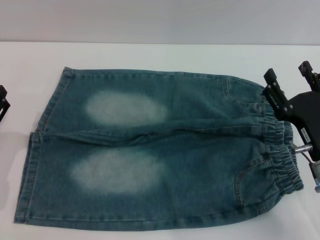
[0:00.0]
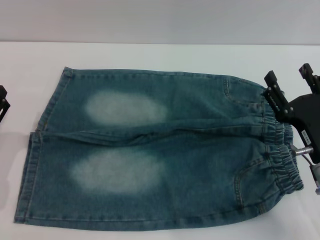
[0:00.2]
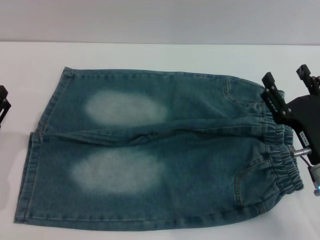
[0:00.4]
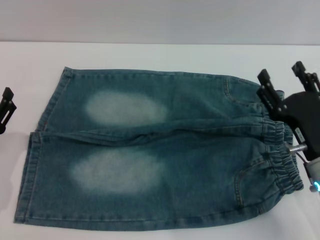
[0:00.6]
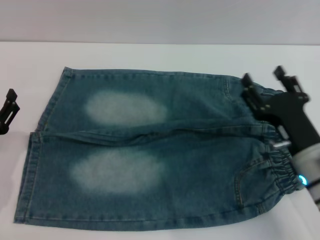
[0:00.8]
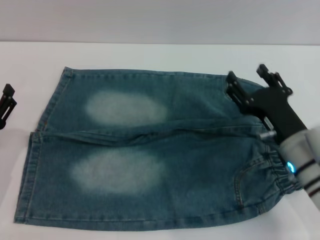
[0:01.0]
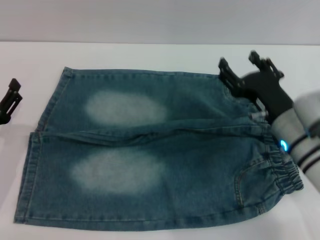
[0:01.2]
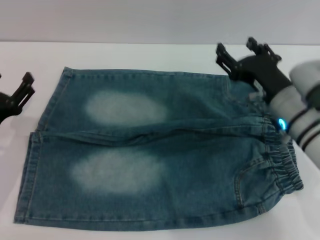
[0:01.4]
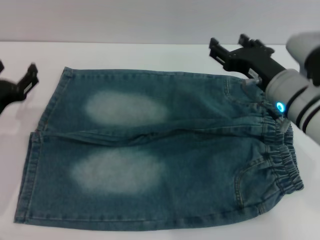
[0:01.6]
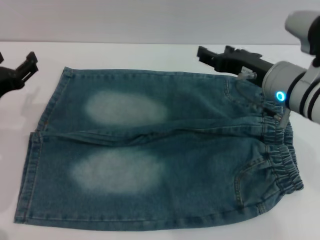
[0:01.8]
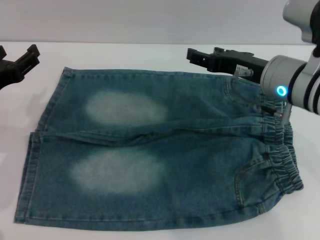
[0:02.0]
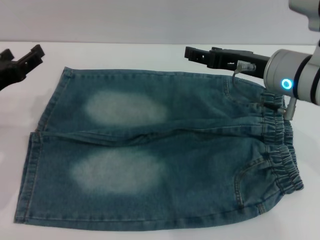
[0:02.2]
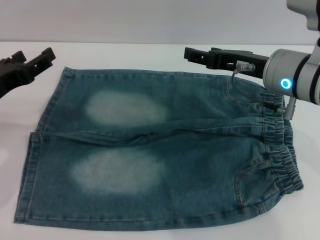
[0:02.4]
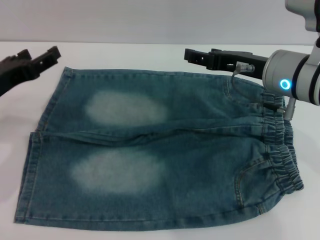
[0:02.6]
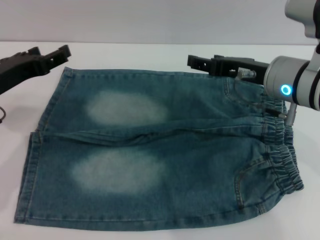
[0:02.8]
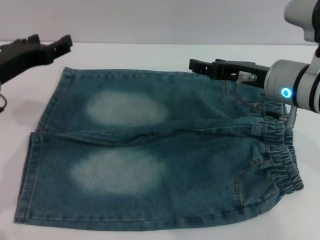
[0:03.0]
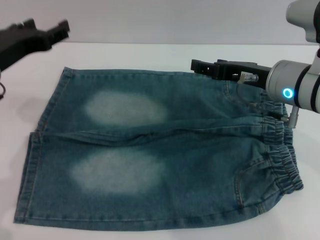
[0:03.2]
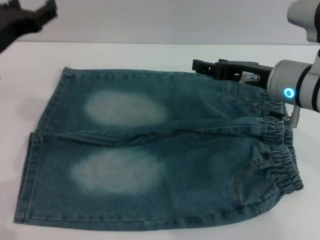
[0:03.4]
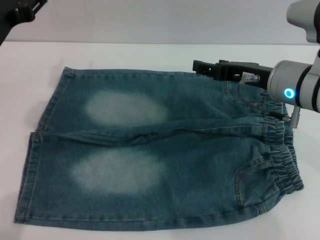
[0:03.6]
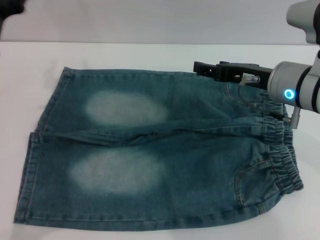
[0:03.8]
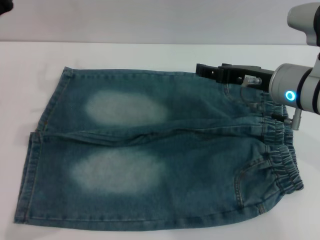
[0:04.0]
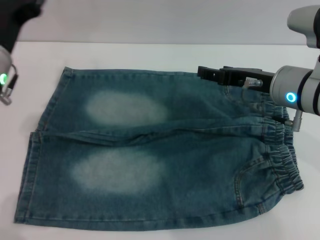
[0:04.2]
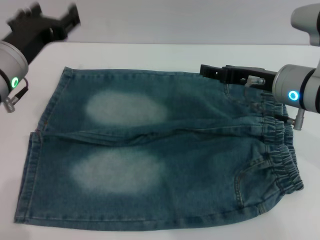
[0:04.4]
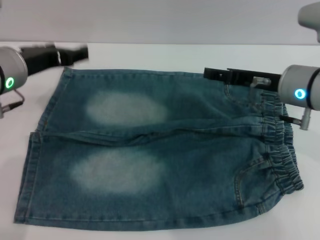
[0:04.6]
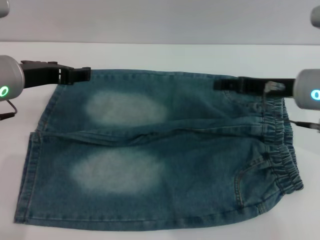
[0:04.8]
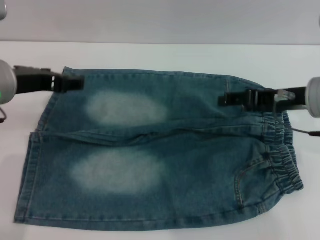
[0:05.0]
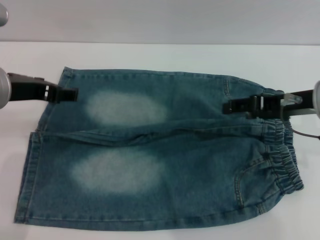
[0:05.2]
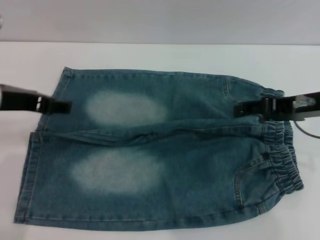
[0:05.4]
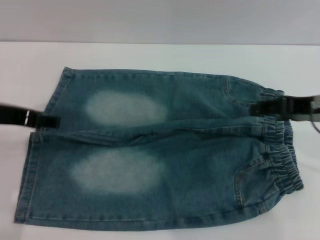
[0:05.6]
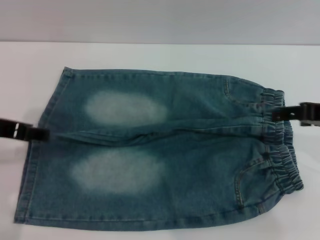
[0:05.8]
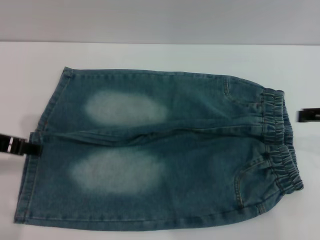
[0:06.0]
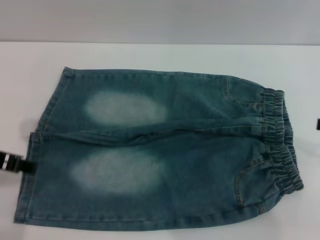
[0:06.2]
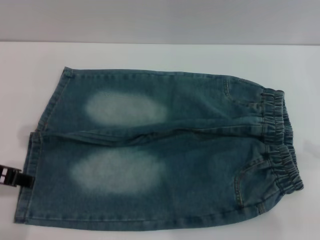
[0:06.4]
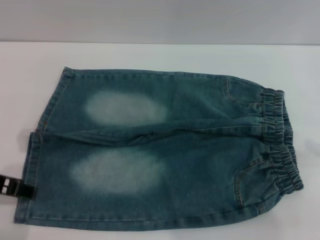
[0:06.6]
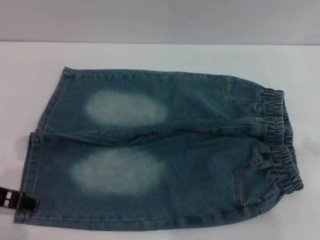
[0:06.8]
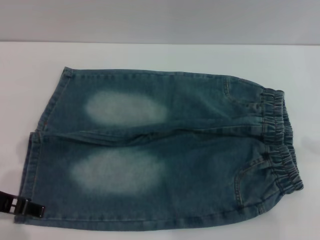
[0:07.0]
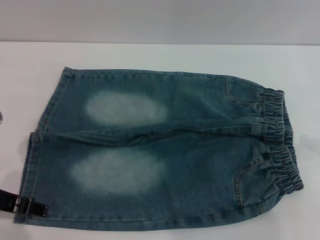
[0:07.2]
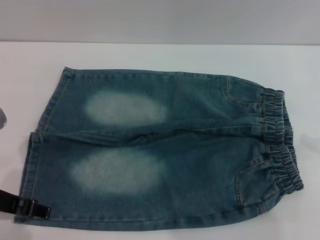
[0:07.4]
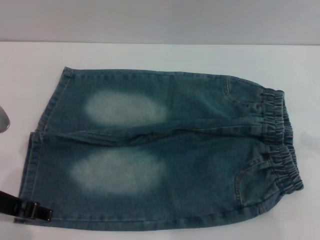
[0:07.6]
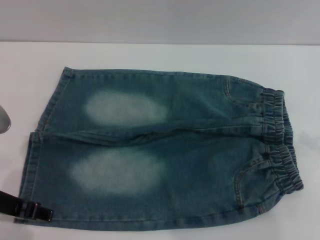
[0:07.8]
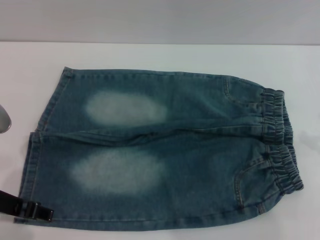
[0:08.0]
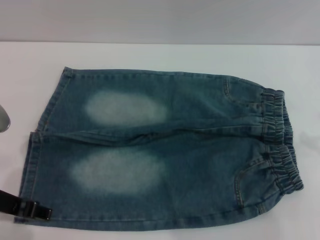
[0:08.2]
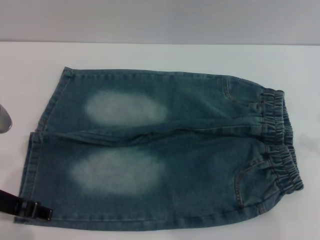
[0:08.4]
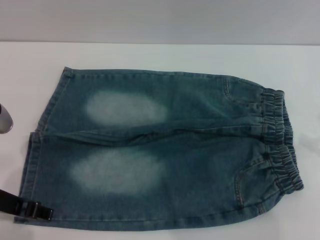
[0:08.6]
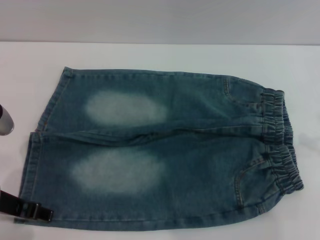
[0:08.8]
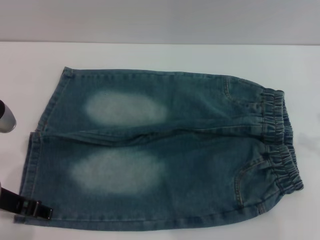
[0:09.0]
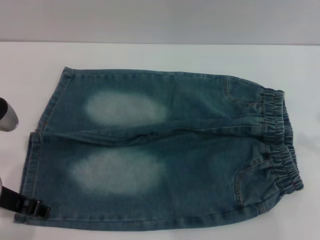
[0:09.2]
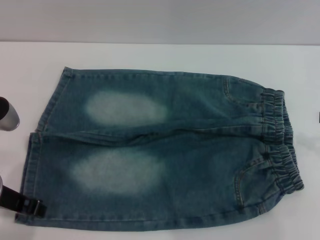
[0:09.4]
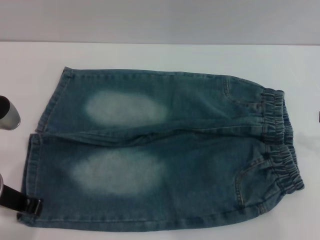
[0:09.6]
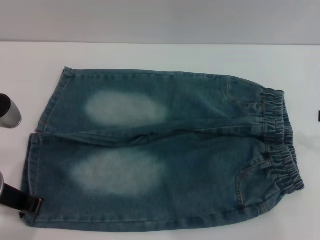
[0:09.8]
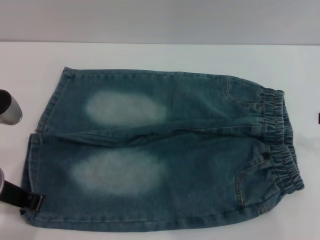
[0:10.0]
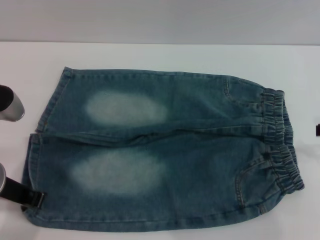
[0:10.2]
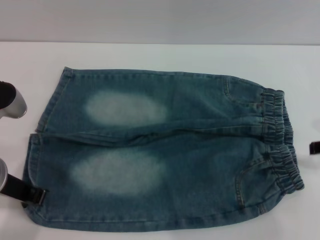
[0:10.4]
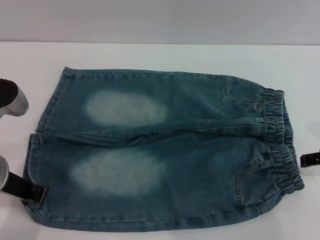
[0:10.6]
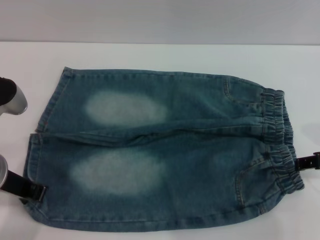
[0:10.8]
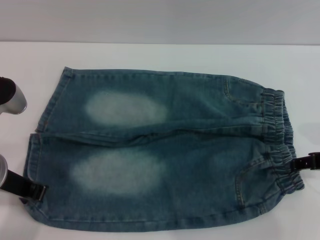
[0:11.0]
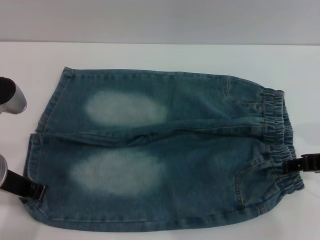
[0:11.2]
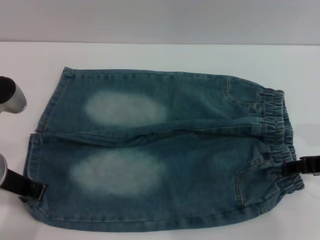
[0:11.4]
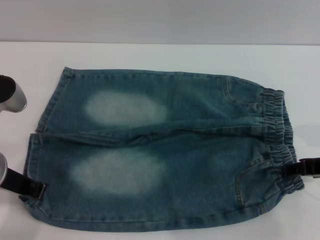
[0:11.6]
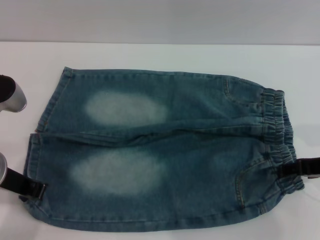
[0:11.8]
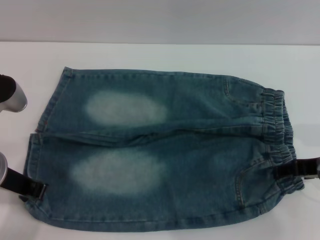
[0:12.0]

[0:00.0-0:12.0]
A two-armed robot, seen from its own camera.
0:00.0 to 0:01.6: The right gripper moves forward, upward and to the left, approximately 15 cm. The left gripper shifts by roughly 5 cm.
0:01.6 to 0:03.0: The left gripper goes approximately 10 cm upward.
0:04.4 to 0:06.0: The right gripper is displaced to the right, backward and upward by roughly 15 cm. Meanwhile the left gripper goes about 5 cm backward.
0:06.0 to 0:07.6: The left gripper ends up approximately 5 cm from where it was.
0:07.6 to 0:09.0: Both grippers stay put.
0:09.0 to 0:10.4: The left gripper closes its fingers.
0:10.4 to 0:12.0: The right gripper ends up about 5 cm from where it was.

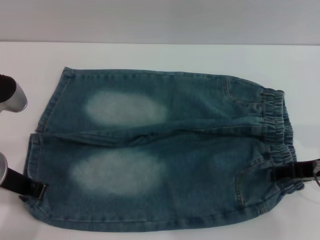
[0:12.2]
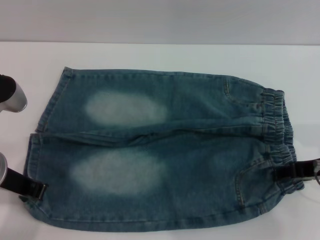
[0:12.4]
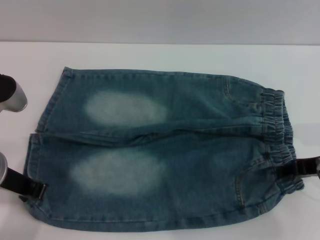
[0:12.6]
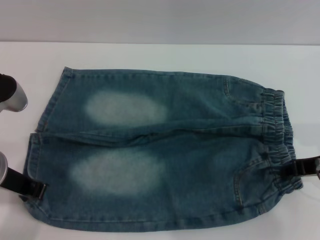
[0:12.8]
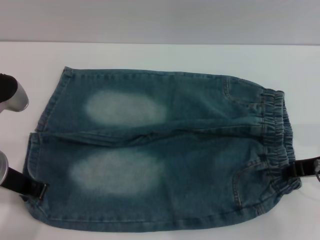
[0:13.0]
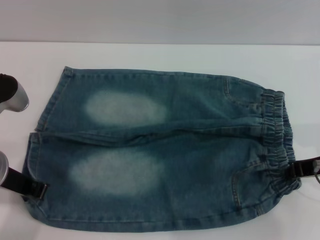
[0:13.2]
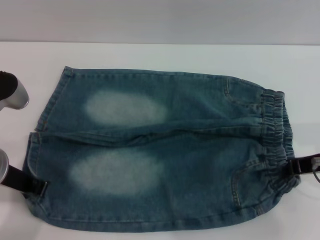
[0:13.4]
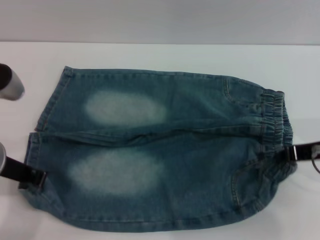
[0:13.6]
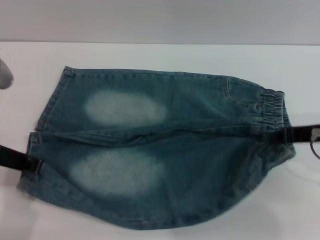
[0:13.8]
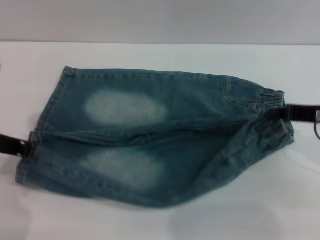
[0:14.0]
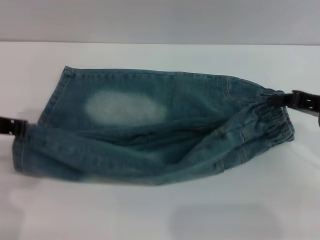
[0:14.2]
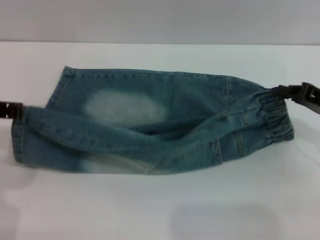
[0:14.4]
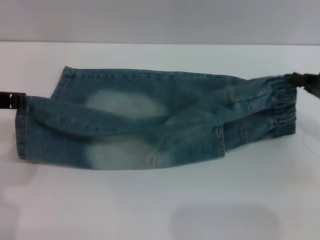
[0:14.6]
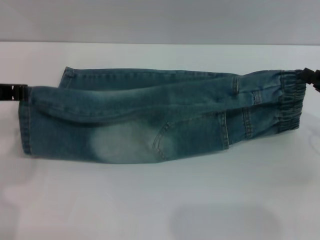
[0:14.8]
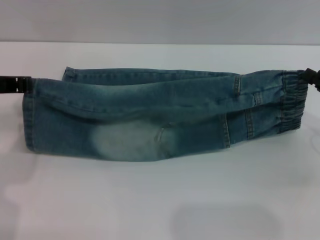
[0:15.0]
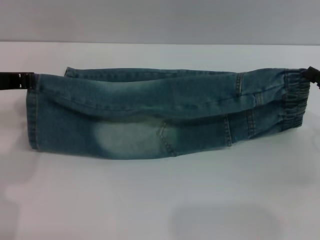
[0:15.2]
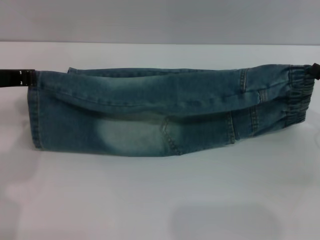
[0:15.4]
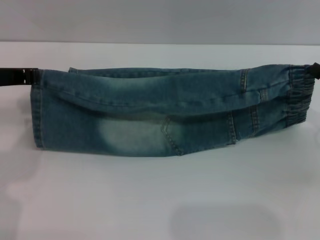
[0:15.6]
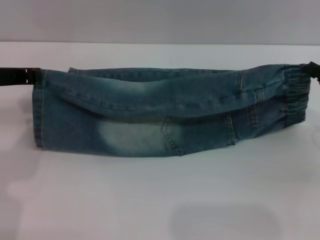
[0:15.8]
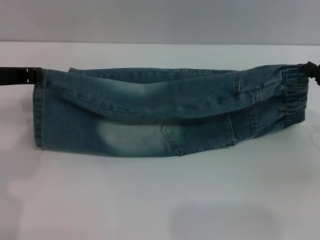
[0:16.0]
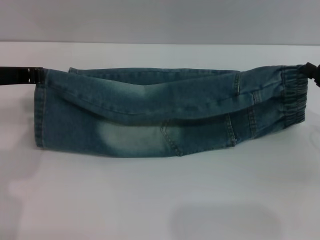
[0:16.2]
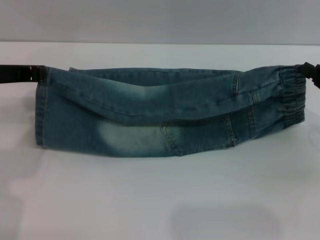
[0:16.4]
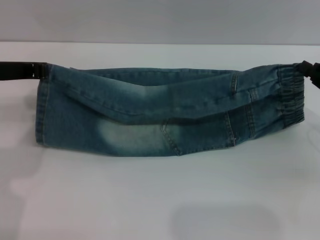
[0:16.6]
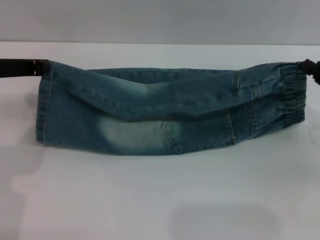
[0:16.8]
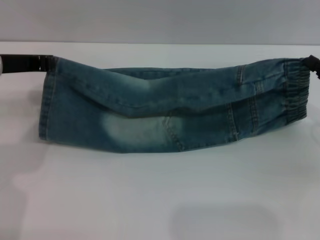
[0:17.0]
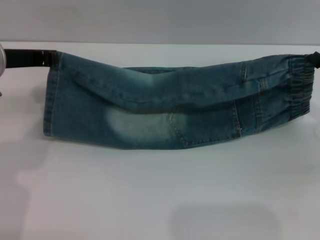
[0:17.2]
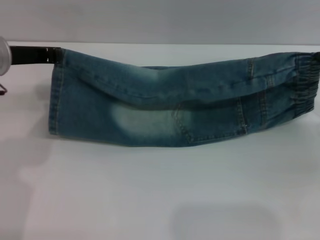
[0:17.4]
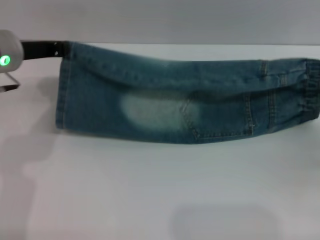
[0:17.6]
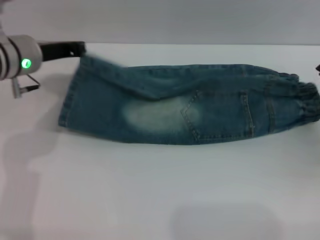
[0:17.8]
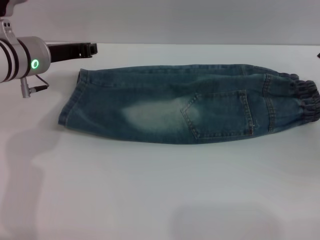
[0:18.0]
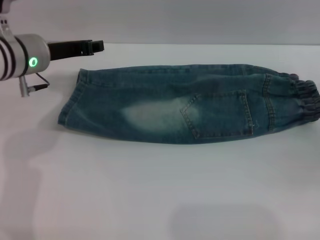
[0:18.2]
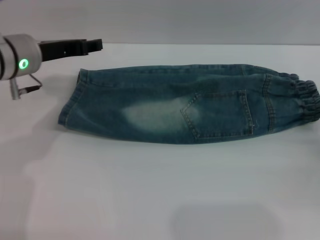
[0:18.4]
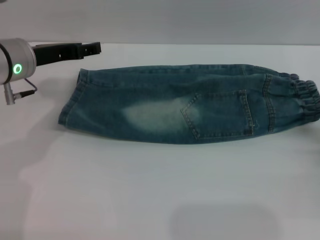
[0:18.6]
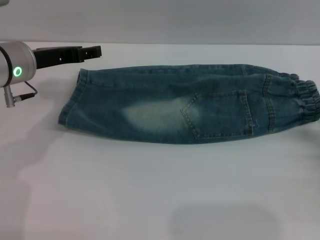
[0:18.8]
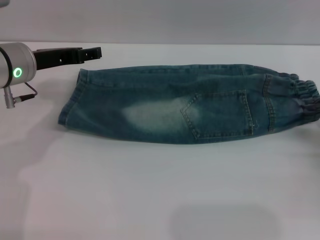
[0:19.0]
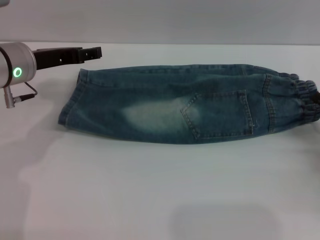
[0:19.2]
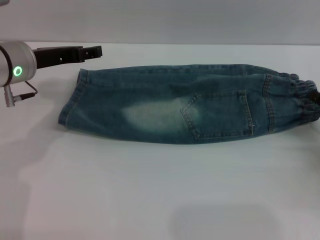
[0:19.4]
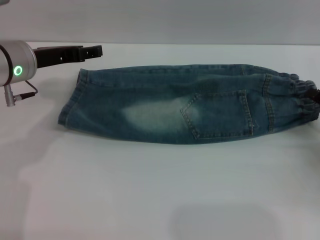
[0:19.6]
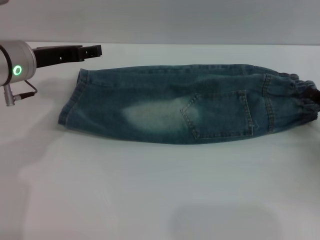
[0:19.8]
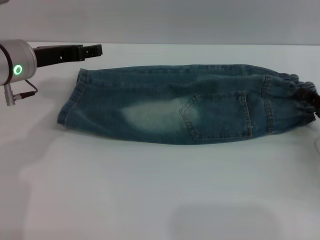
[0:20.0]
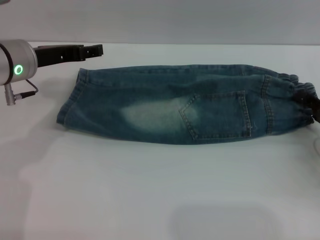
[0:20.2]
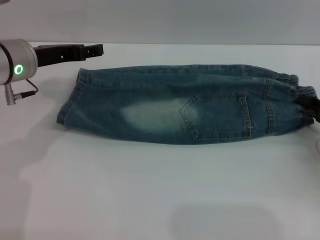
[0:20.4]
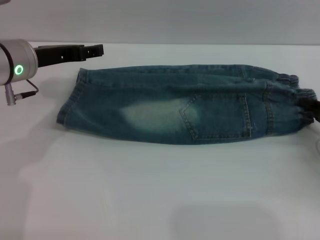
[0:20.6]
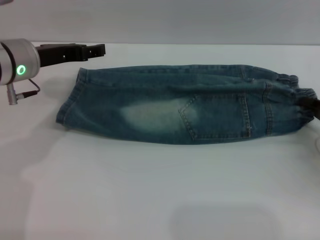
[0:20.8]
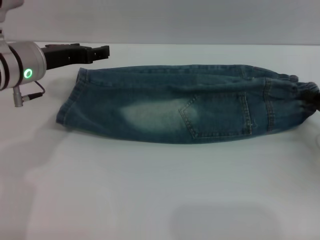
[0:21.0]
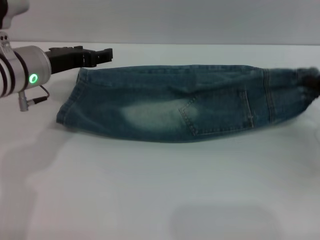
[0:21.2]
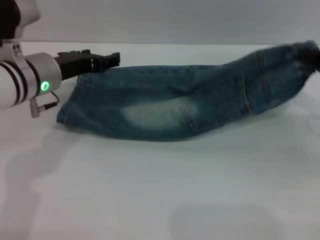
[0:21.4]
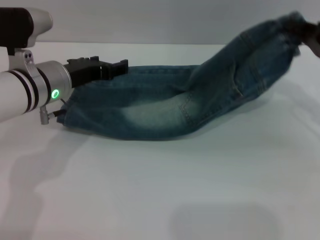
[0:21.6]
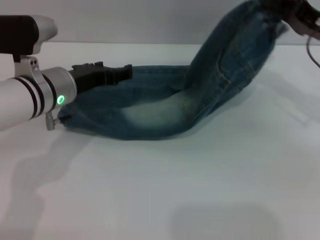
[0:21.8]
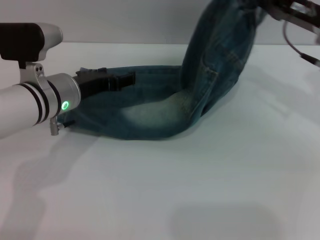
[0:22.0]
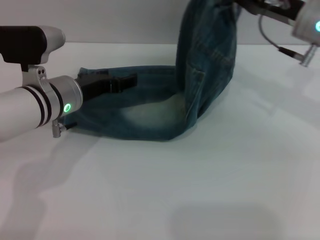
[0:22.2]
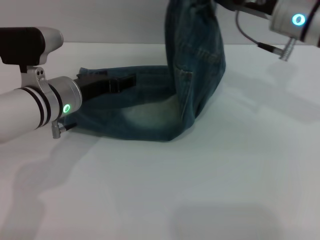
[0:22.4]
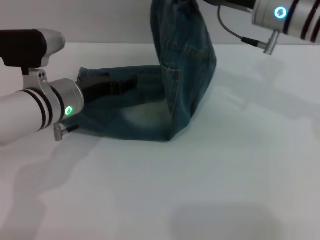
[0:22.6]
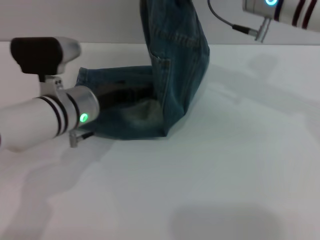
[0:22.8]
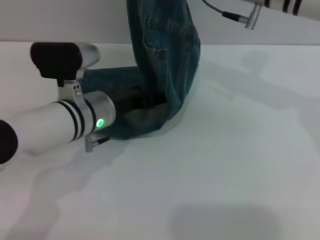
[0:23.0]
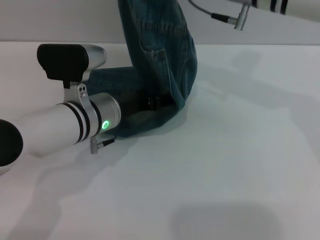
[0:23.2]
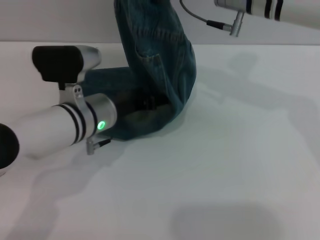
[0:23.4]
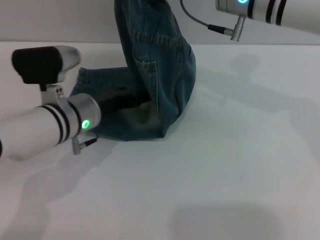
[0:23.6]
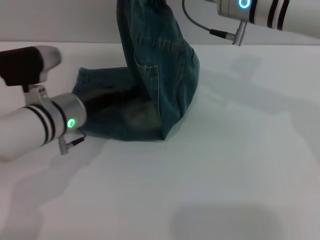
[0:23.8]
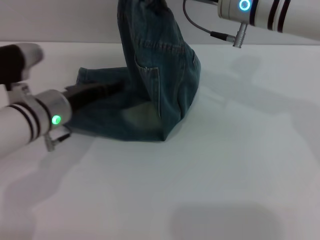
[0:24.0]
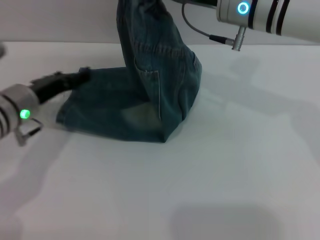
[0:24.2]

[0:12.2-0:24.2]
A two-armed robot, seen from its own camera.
Step, 0:12.2 to 0:18.2: Fold the bottom of the pants upward with both grippers.
0:12.2 to 0:13.8: The right gripper closes up.
0:13.8 to 0:15.2: The right gripper travels to the right by approximately 10 cm, while the left gripper travels forward by some 5 cm.
0:15.2 to 0:16.6: There are only small adjustments of the grippers.
0:16.6 to 0:18.2: The right gripper changes place by some 5 cm, and opens its fingers; the left gripper heads forward, covering some 5 cm.
0:18.2 to 0:19.8: The right gripper shifts by approximately 5 cm. The left gripper opens its fingers.
0:19.8 to 0:21.2: The right gripper closes up.
0:21.2 to 0:22.6: The right gripper travels to the left, upward and forward by roughly 25 cm. Meanwhile the left gripper moves about 5 cm.
0:22.6 to 0:24.2: The left gripper goes about 5 cm to the left.
